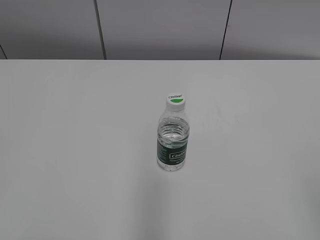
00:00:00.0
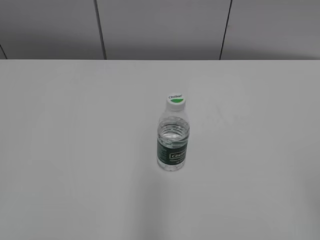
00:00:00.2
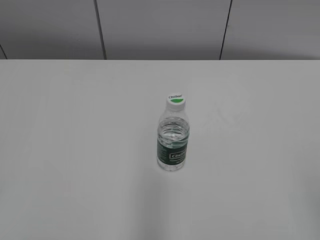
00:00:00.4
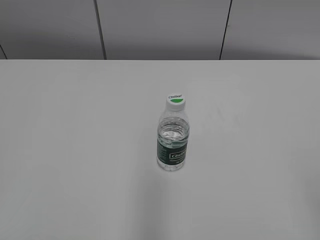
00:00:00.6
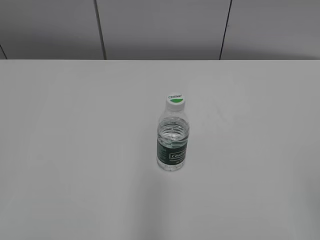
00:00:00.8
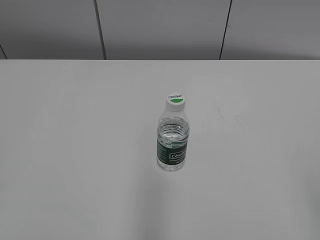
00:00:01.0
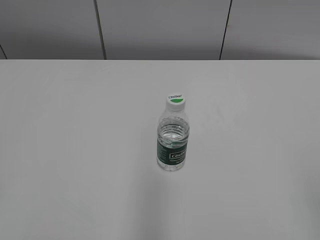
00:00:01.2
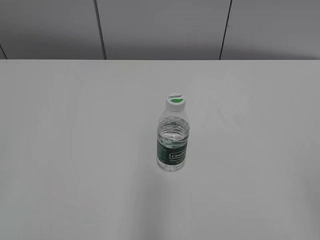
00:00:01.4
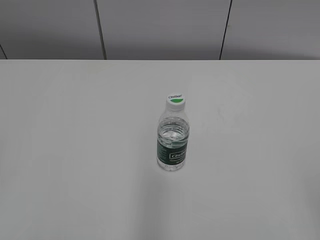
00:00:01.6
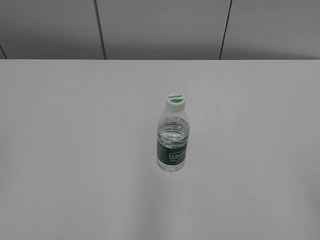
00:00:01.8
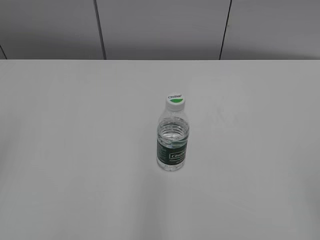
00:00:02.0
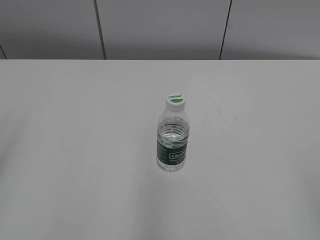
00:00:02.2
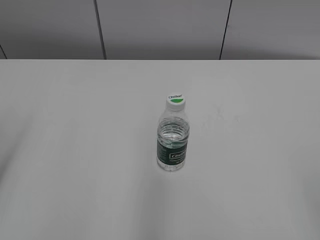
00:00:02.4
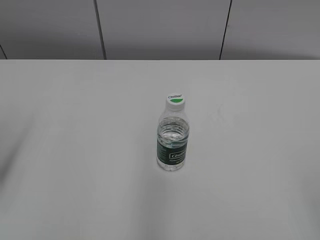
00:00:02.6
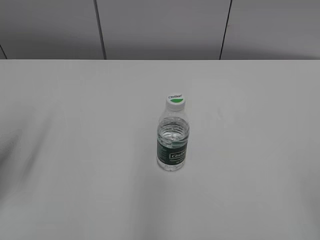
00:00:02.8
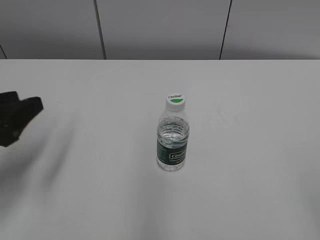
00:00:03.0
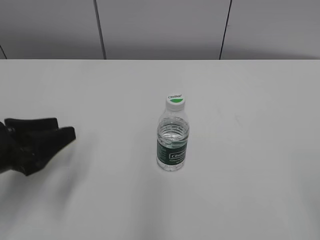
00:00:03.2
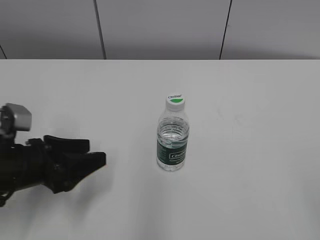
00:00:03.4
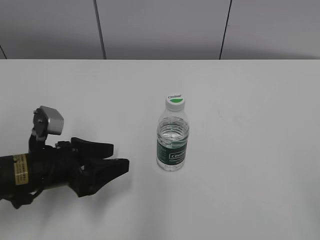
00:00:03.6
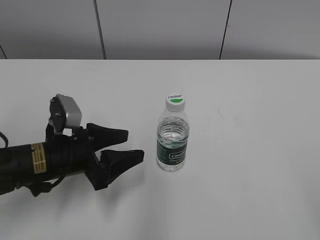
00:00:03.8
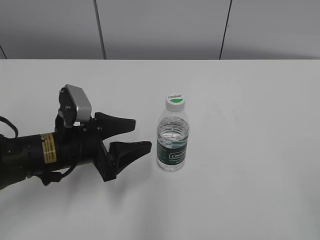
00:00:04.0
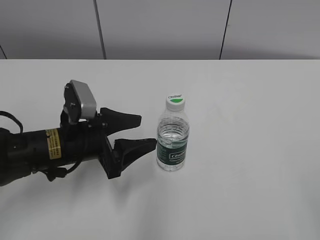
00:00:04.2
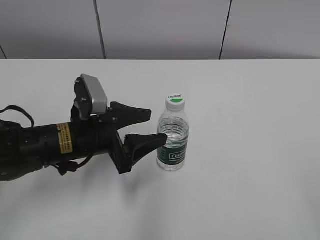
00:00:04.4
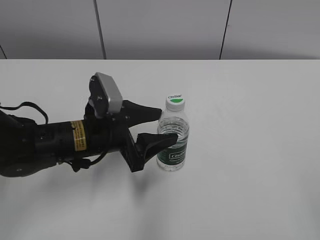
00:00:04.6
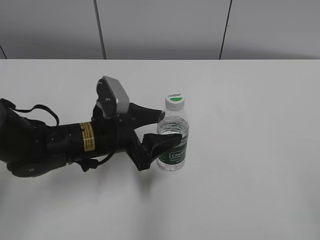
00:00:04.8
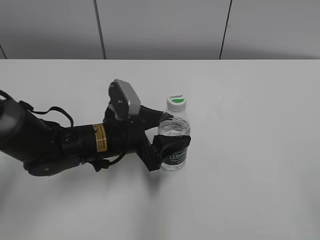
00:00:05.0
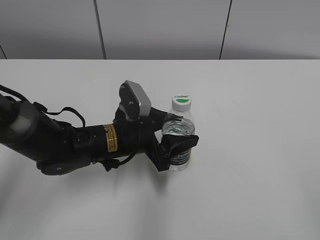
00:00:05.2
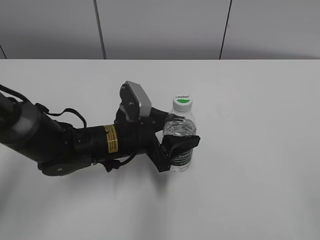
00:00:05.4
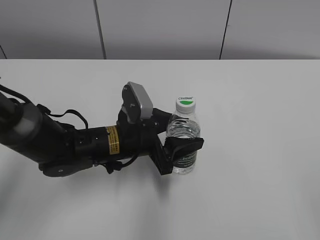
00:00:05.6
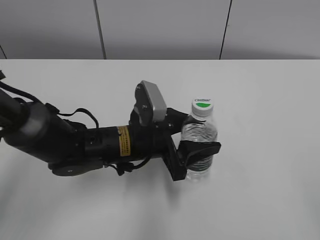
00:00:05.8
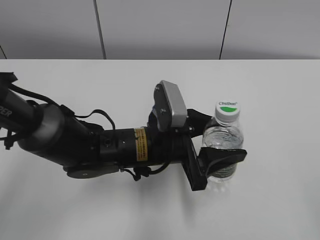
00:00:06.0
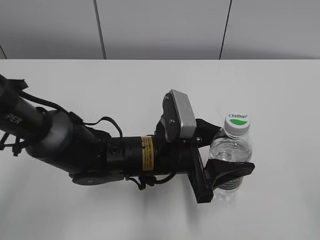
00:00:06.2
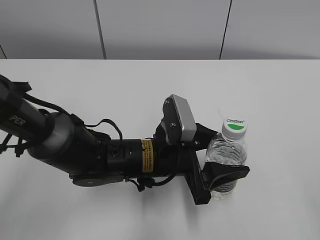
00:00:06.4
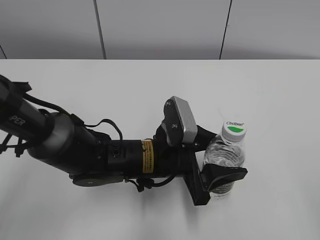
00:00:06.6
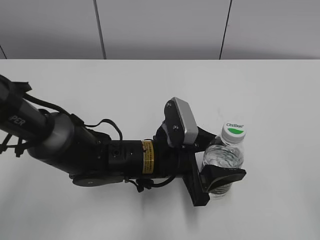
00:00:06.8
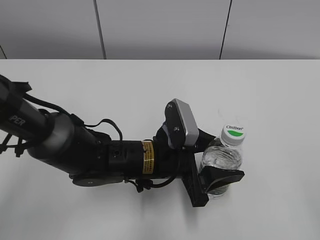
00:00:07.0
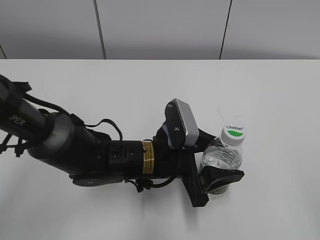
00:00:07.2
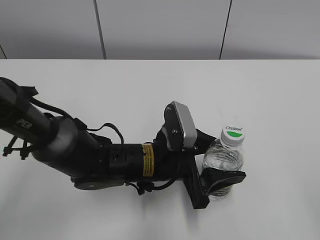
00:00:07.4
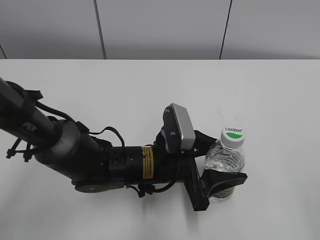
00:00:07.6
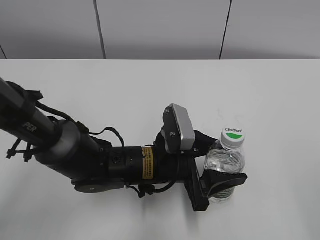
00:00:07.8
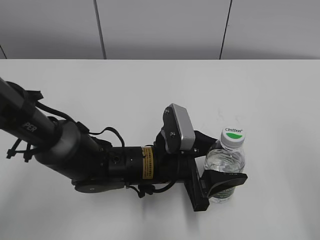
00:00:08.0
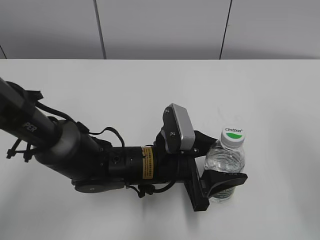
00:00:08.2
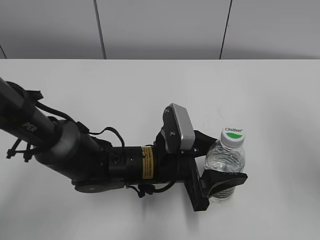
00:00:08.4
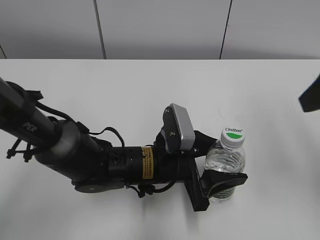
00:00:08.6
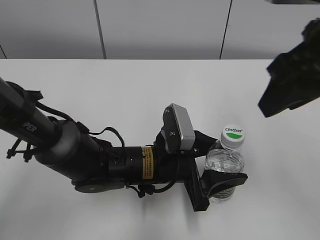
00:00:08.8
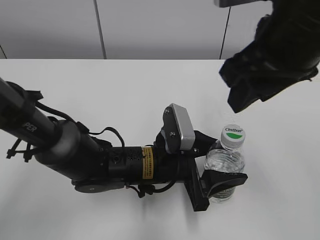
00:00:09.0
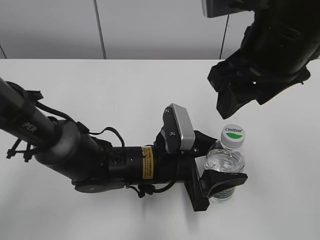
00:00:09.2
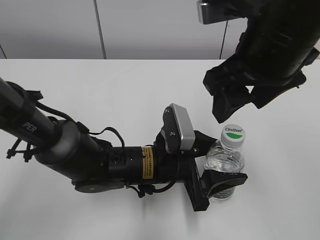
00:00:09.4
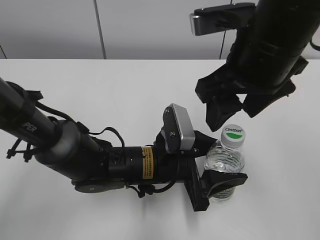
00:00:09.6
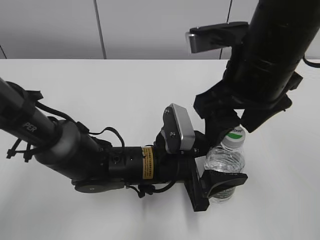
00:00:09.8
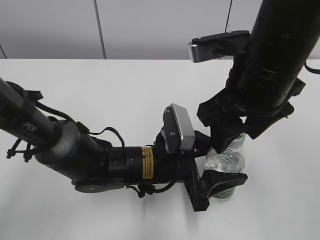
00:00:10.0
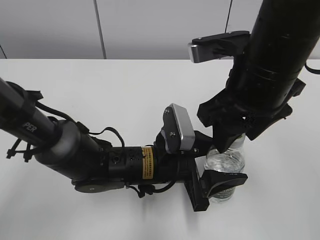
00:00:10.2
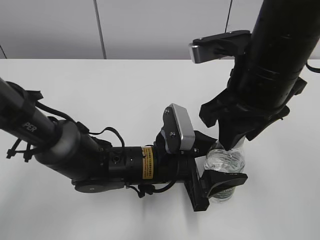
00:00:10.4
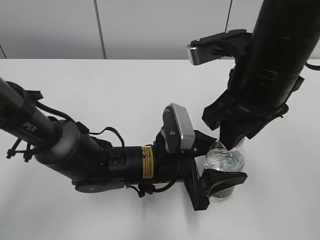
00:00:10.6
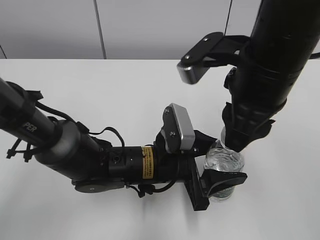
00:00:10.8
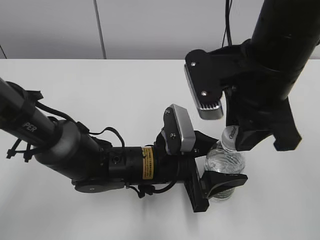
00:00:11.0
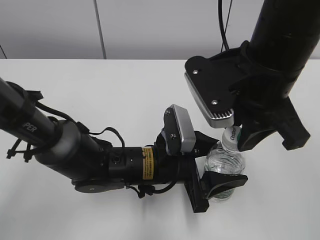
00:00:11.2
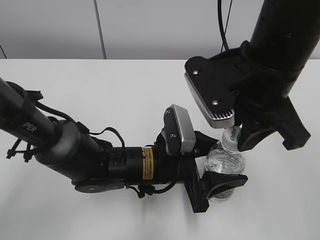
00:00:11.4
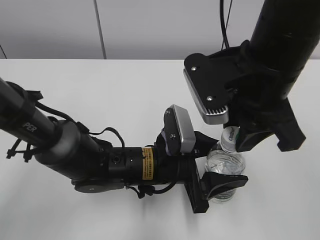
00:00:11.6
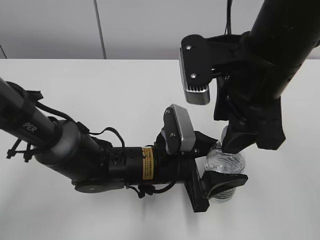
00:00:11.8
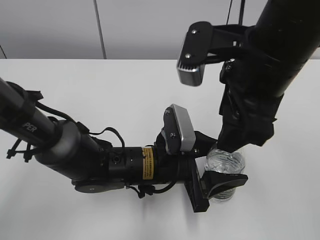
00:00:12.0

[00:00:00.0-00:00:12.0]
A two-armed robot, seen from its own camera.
Step, 00:00:00.0 to 00:00:04.8: Grab the C'estbon with the left hand.
Step, 00:00:05.0 to 00:00:09.4: Move the C'estbon to the right with the left hand.
00:00:01.6 to 00:00:03.0: The left gripper travels forward and downward by roughly 25 cm, and opens.
00:00:03.0 to 00:00:04.4: The left gripper is displaced to the right and downward by approximately 15 cm.
00:00:04.4 to 00:00:06.0: The left gripper travels to the right by roughly 10 cm.
00:00:06.0 to 00:00:07.6: There are only small adjustments of the grippers.
00:00:07.6 to 00:00:09.0: The right gripper travels forward and to the left by roughly 30 cm.
00:00:09.0 to 00:00:10.4: The right gripper heads downward, covering some 5 cm, and opens, then closes once more.
00:00:10.4 to 00:00:12.0: The right gripper opens.

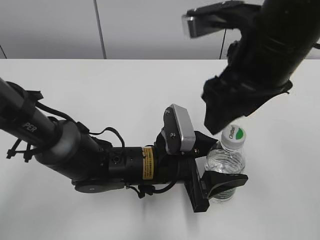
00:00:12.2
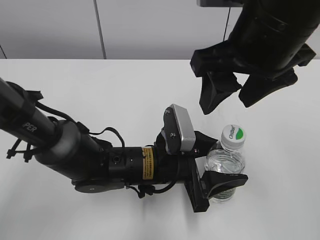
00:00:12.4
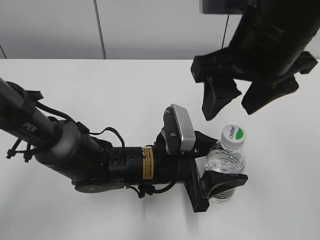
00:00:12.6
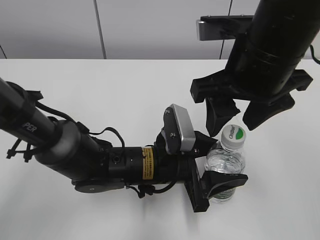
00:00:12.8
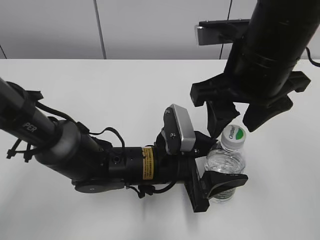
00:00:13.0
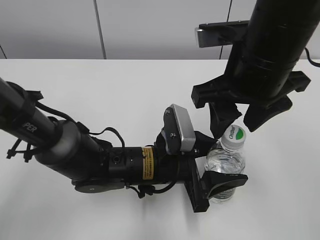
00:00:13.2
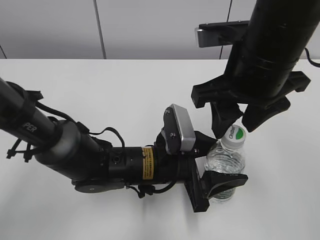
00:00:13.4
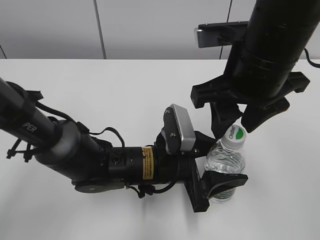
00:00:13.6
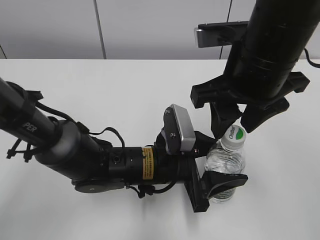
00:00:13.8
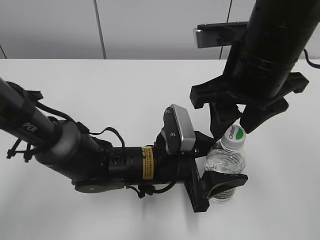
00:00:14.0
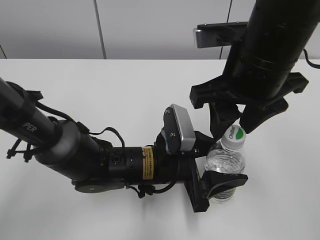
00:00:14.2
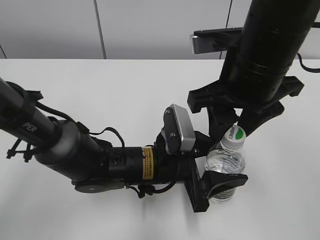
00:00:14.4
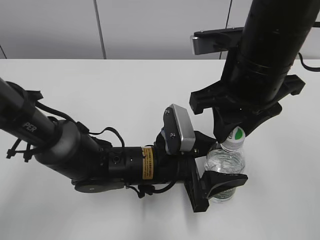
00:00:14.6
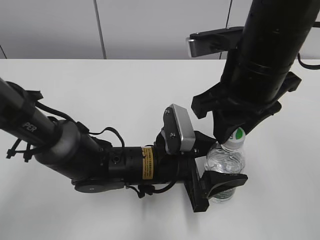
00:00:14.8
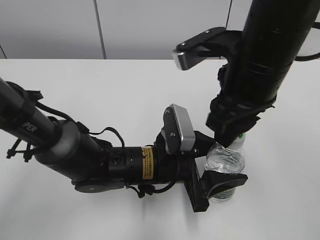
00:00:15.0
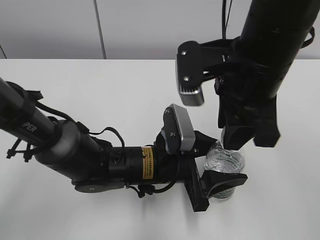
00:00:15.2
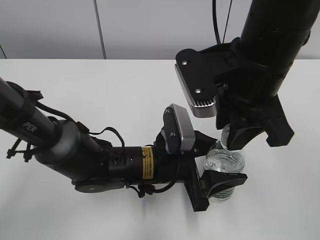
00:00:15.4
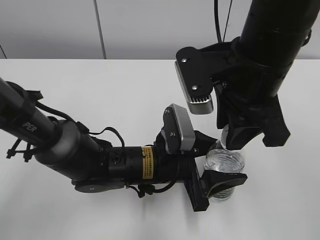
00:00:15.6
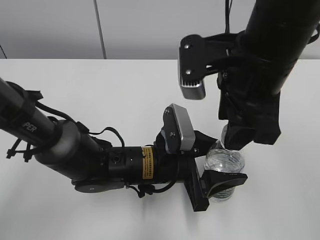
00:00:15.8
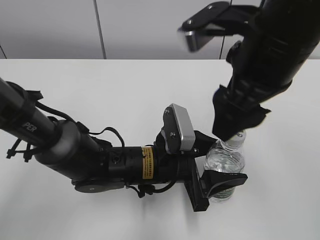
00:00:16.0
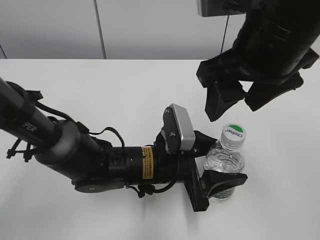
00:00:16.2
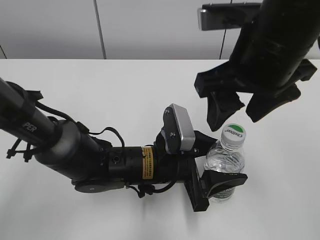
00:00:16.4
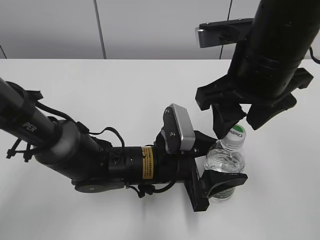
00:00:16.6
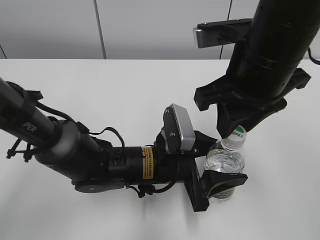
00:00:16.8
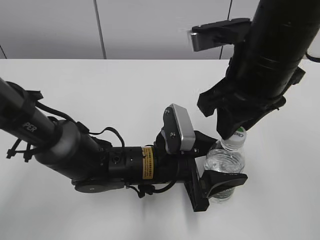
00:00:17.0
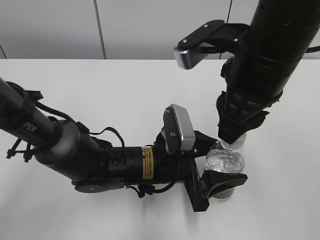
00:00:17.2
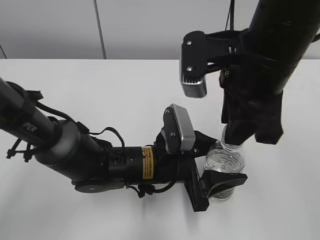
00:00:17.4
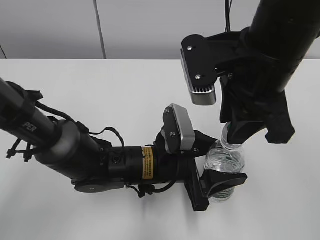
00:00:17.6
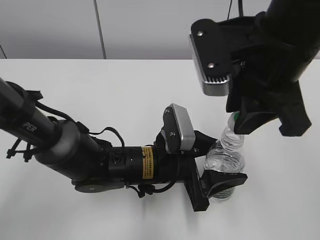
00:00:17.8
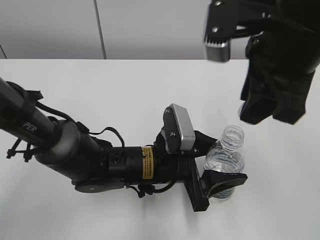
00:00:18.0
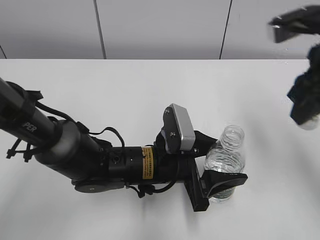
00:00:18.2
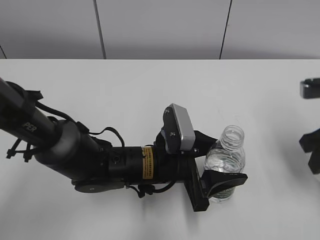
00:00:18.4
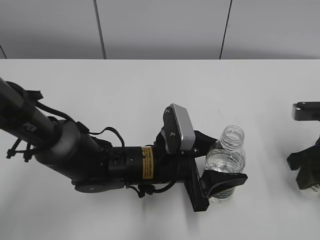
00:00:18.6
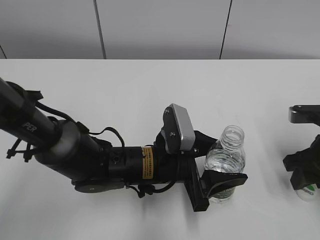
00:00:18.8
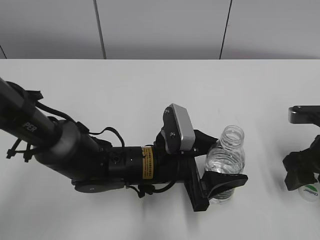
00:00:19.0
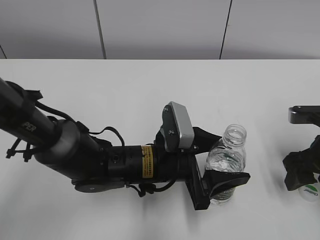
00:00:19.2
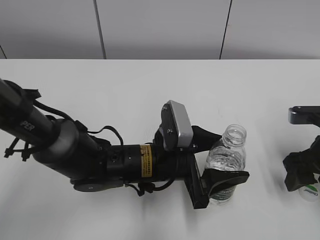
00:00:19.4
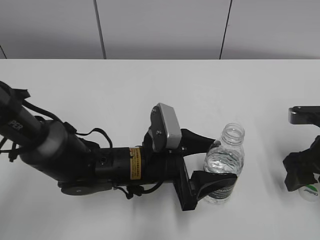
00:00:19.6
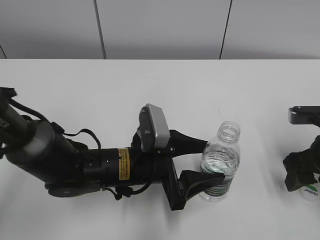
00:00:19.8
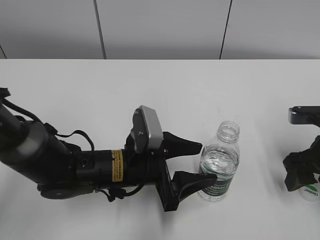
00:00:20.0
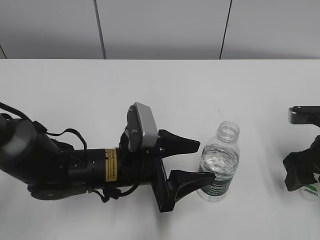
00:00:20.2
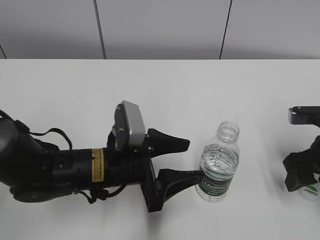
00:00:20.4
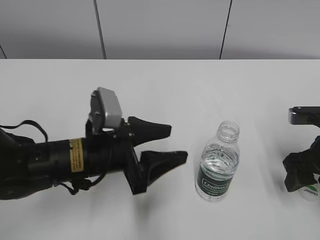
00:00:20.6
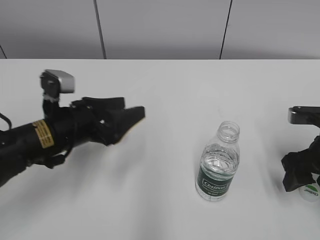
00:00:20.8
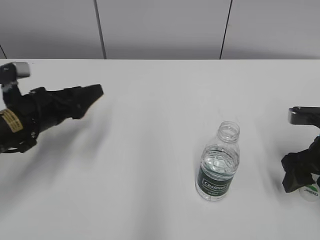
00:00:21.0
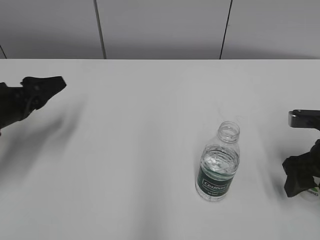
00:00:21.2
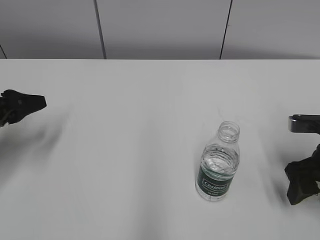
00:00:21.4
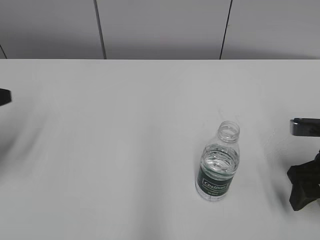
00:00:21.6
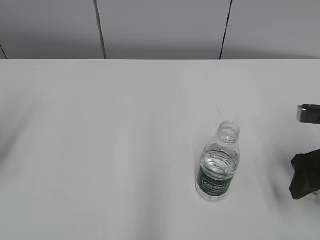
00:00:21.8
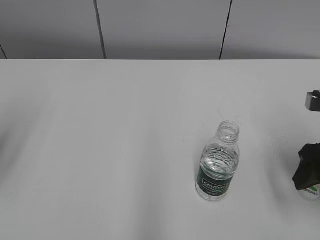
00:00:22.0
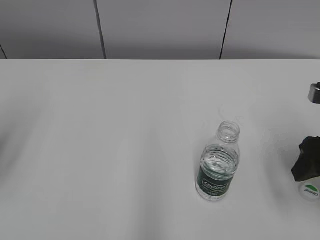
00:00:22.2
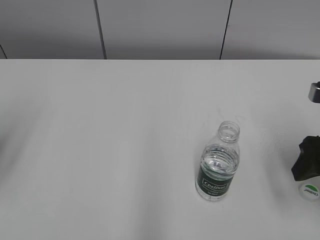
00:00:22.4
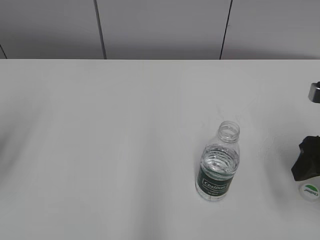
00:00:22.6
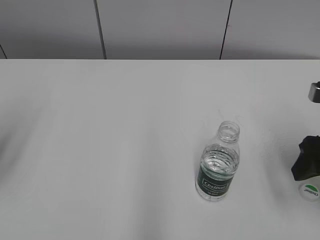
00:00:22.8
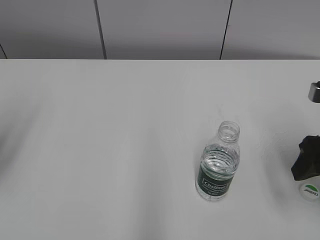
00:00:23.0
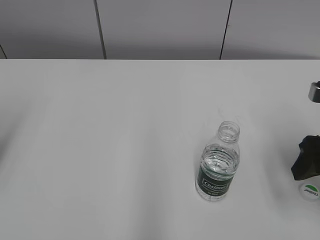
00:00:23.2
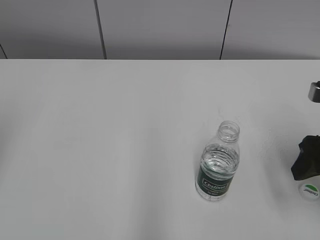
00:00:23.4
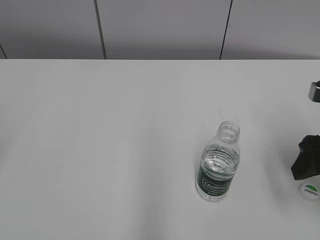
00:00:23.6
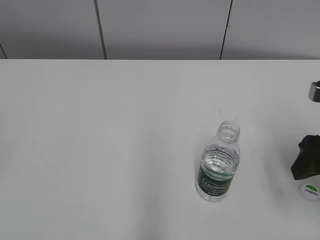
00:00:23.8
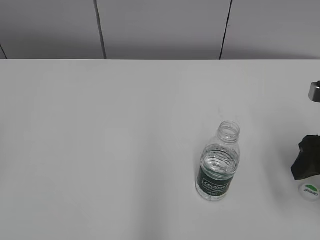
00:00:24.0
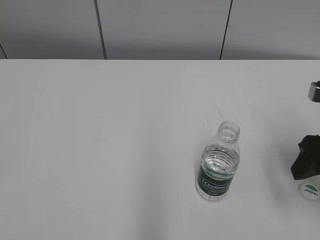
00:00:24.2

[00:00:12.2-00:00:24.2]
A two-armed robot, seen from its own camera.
Step, 00:00:18.2 to 00:00:20.2: Place the C'estbon with the left hand.
00:00:12.2 to 00:00:13.8: The right gripper closes.
00:00:13.8 to 00:00:15.2: The right gripper closes its fingers.
00:00:15.2 to 00:00:16.6: The right gripper opens its fingers.
00:00:16.6 to 00:00:18.2: The right gripper shifts some 10 cm to the right, and closes.
00:00:18.2 to 00:00:19.8: The right gripper is displaced downward and to the right by roughly 20 cm, and opens up.
00:00:19.8 to 00:00:21.2: The left gripper shifts approximately 25 cm to the left.
00:00:21.2 to 00:00:22.6: The right gripper travels upward by roughly 5 cm, while the left gripper shifts some 20 cm upward and backward, and closes its fingers.
00:00:22.6 to 00:00:24.2: The left gripper moves backward, about 15 cm.
